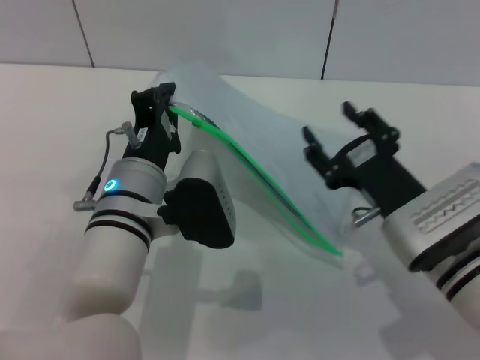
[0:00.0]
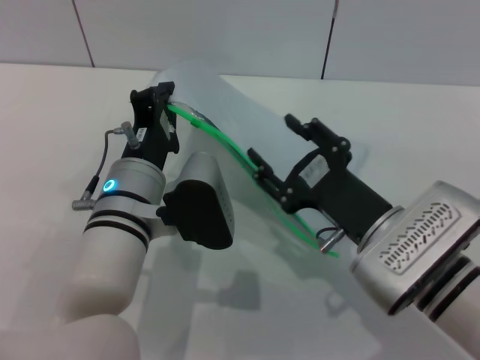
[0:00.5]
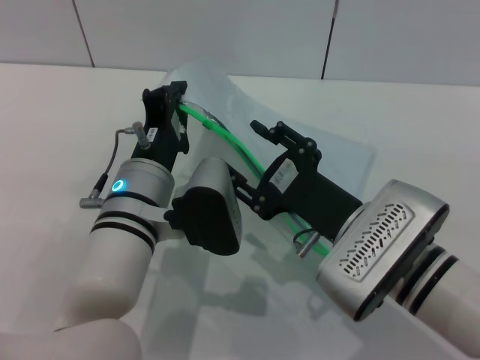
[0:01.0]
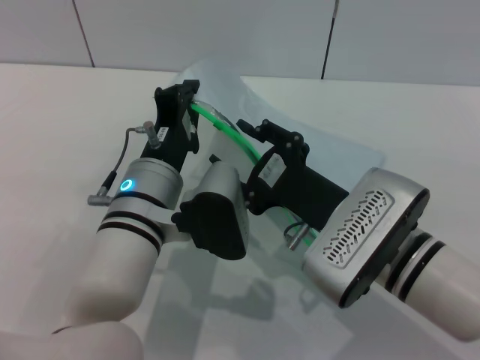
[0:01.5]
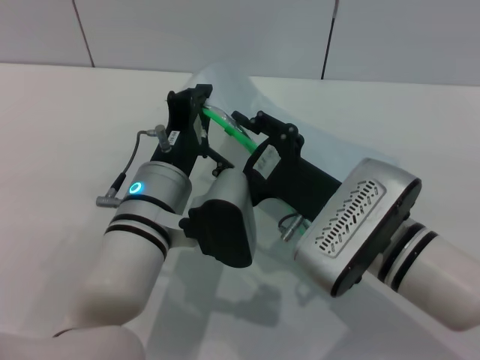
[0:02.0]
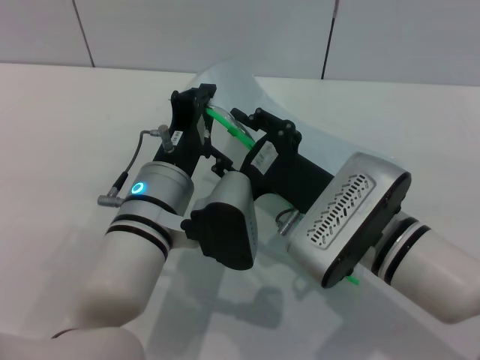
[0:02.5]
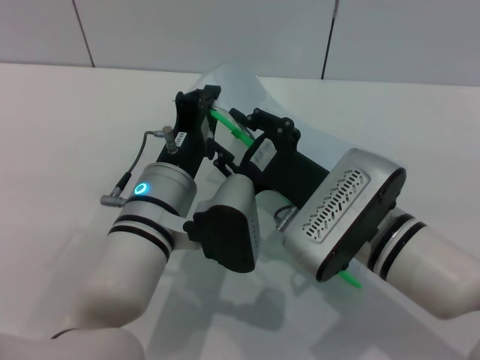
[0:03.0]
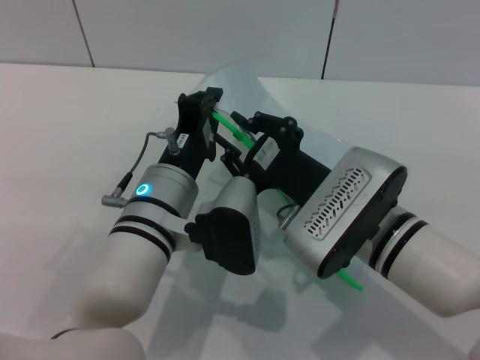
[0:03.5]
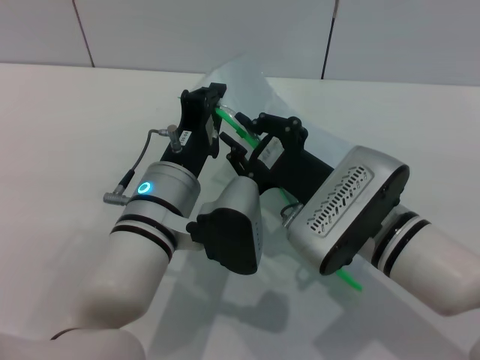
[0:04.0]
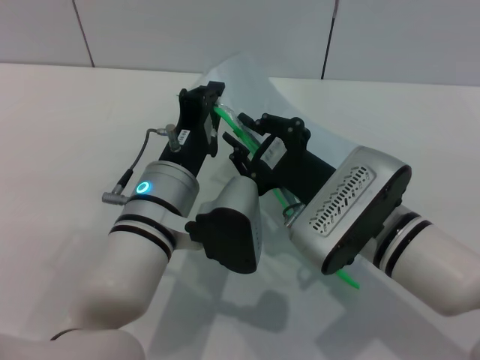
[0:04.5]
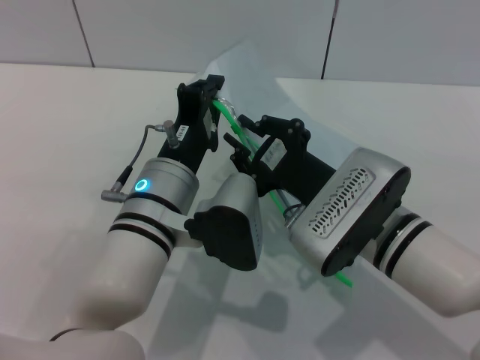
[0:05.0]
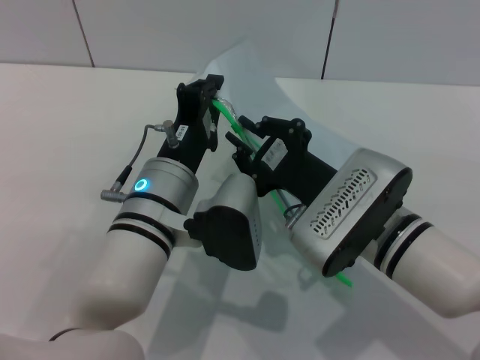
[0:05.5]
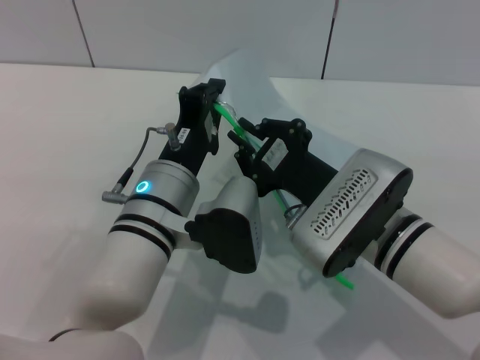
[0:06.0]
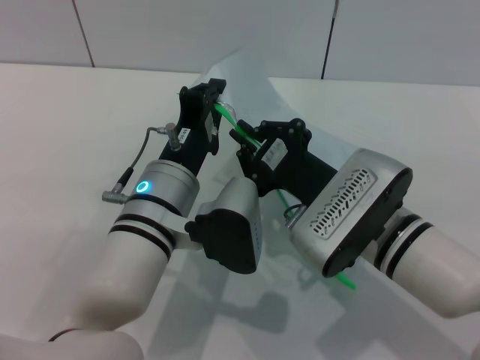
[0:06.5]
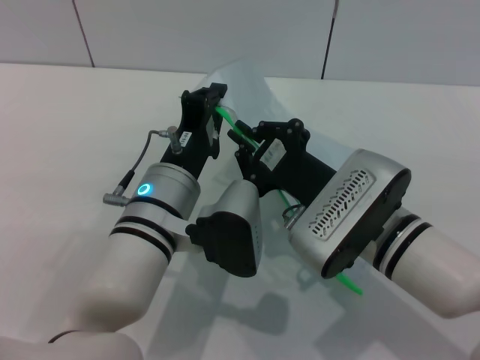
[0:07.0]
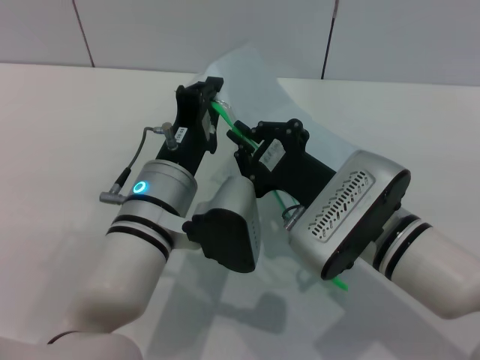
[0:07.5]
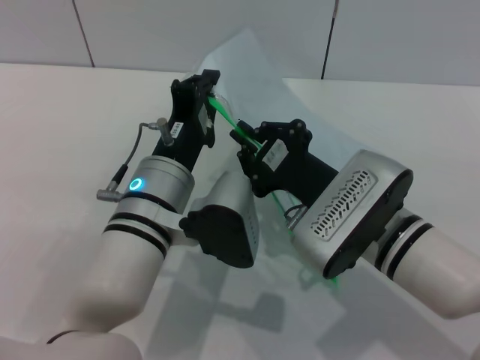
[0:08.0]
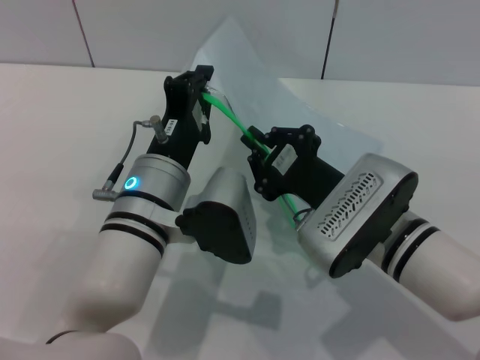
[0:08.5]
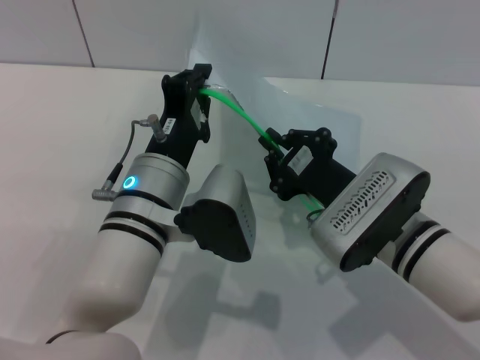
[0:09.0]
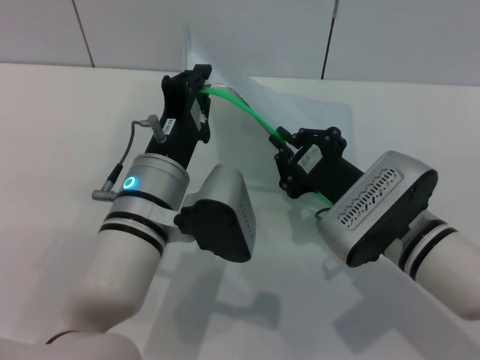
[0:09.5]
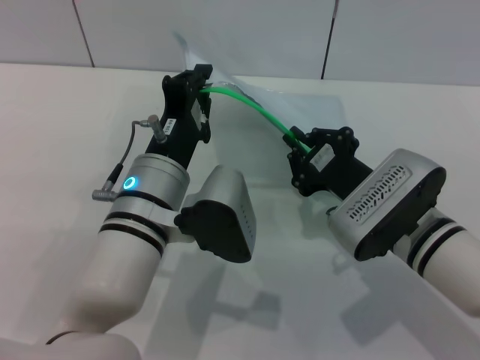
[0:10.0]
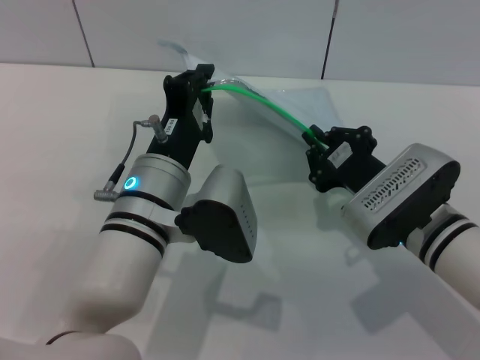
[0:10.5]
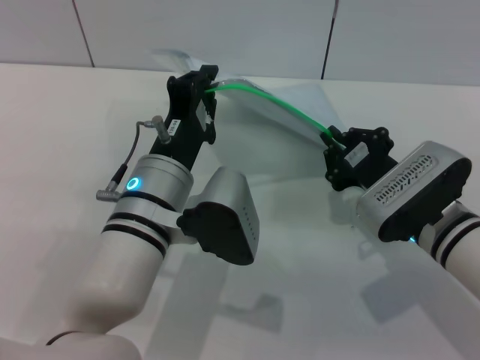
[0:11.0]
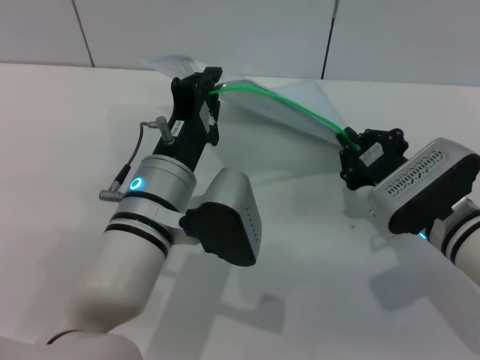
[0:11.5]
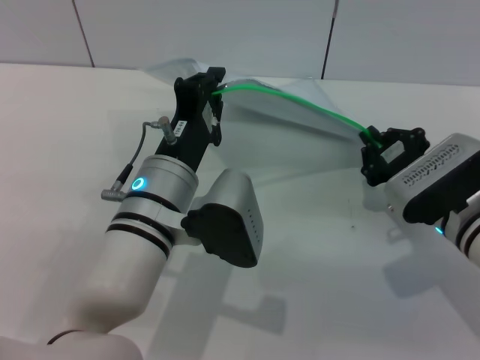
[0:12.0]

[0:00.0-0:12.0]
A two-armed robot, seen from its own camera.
0:00.0 to 0:02.0: The right gripper heads to the left, covering roughly 5 cm.
0:02.0 to 0:04.0: The right gripper closes its fingers.
0:04.0 to 0:08.0: Both grippers stay about where they are.
0:08.0 to 0:10.0: There are only small adjustments of the grippers.
0:10.0 to 0:12.0: The right gripper heads to the right, covering approximately 5 cm.

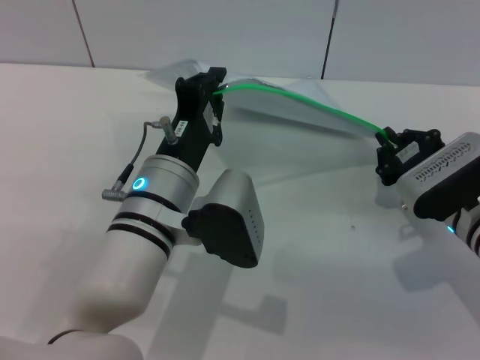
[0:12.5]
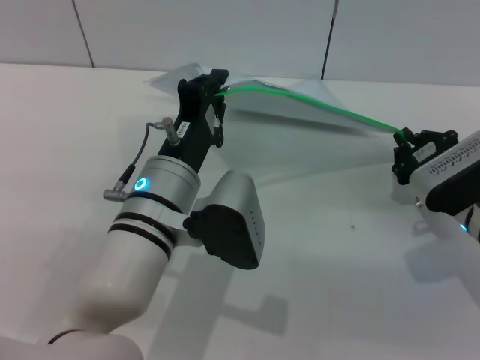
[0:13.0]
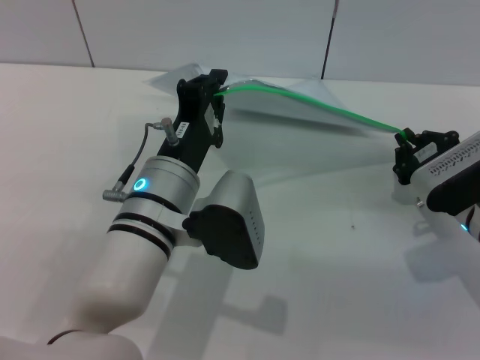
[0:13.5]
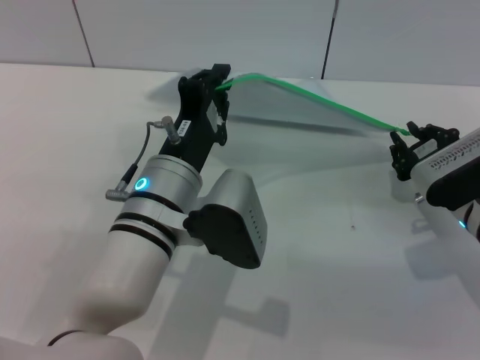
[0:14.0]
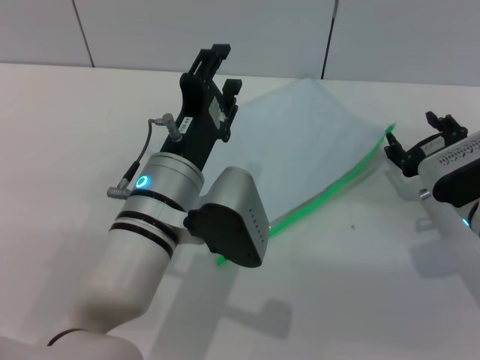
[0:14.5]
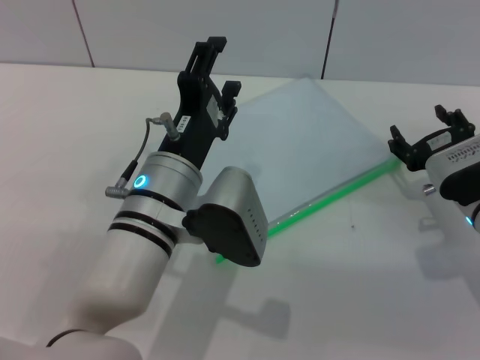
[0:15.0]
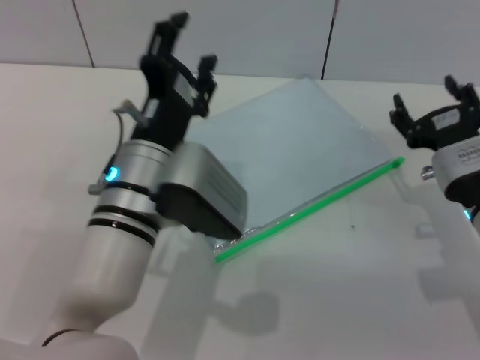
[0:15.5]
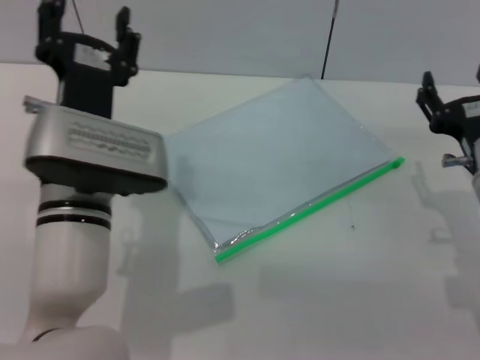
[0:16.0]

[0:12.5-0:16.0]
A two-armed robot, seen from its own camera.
Step, 0:14.5 to 0:15.0: Place the transparent plastic bag.
0:12.5 to 0:14.5: The right gripper opens, while the left gripper opens.
0:14.5 to 0:16.0: The left gripper is displaced to the left by some 5 cm, and opens. The right gripper ends up some 5 cm from where it was.
